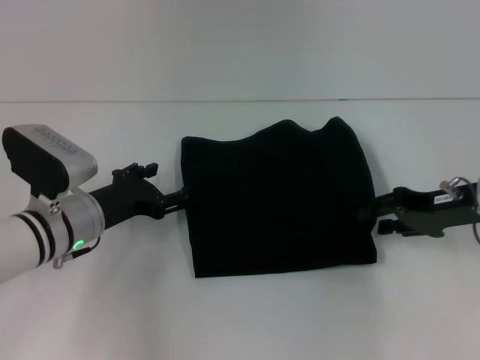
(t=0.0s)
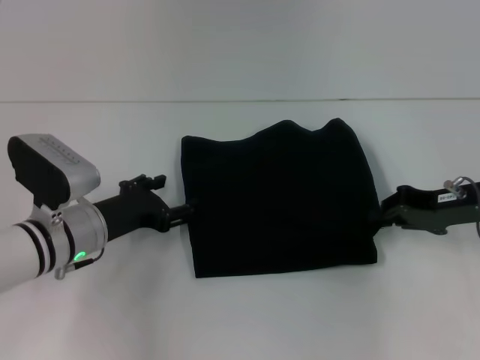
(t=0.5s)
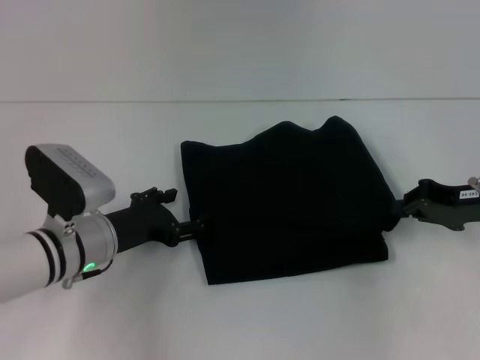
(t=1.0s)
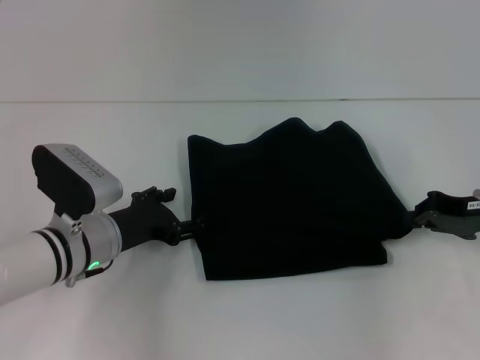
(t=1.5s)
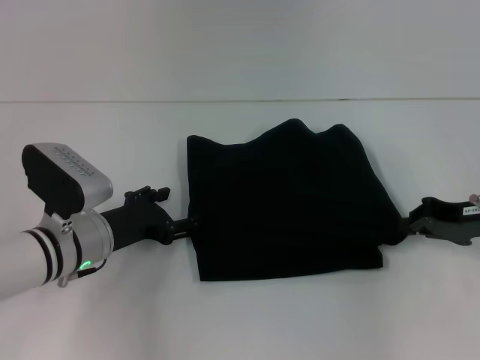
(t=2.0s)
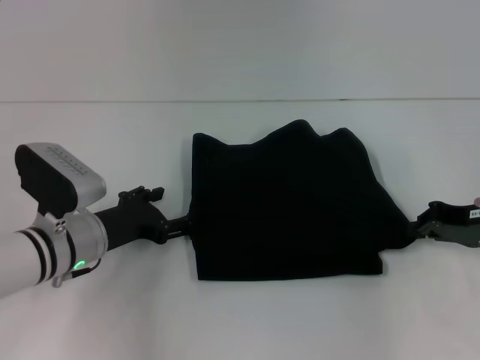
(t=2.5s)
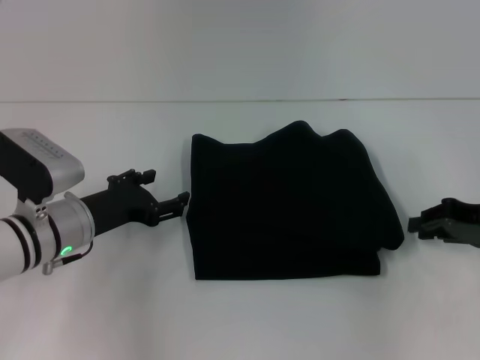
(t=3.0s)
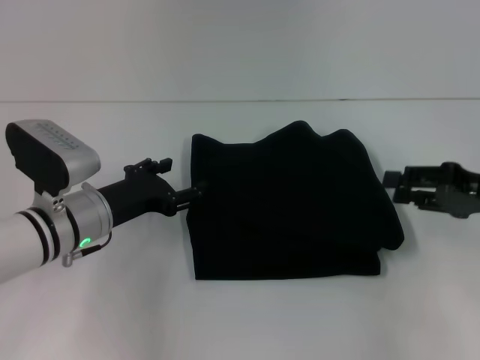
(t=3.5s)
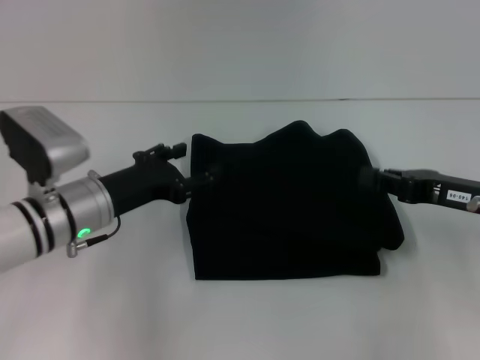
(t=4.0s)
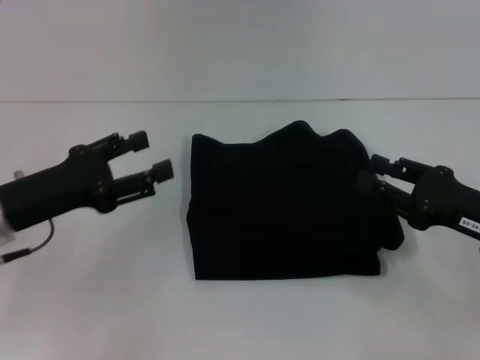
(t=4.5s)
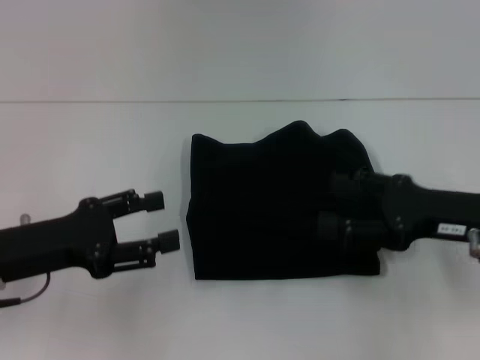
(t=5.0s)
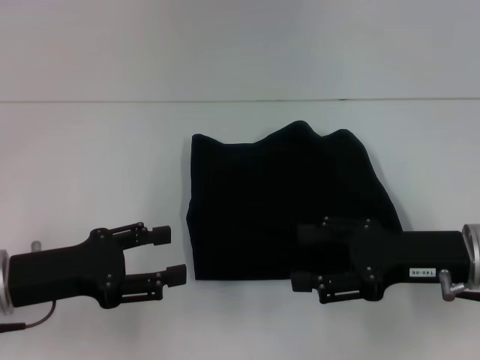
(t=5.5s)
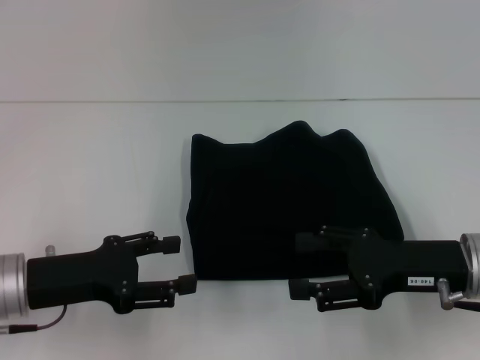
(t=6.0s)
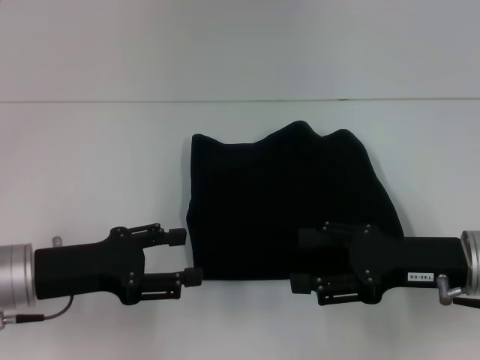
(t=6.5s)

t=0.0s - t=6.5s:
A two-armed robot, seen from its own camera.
t=0.0s - t=2.0s: The right gripper closes.
t=2.0s - t=4.5s: The right gripper is displaced backward by roughly 5 cm. Meanwhile the left gripper shifts roughly 10 cm upward and to the left.
t=4.5s - t=6.5s: The right gripper opens up.

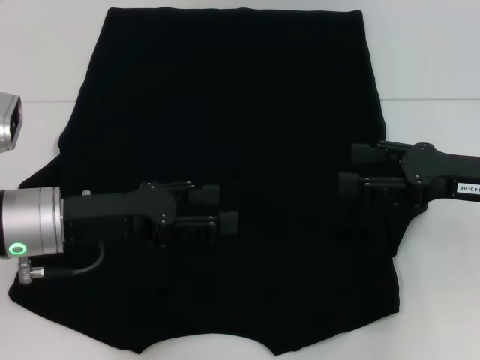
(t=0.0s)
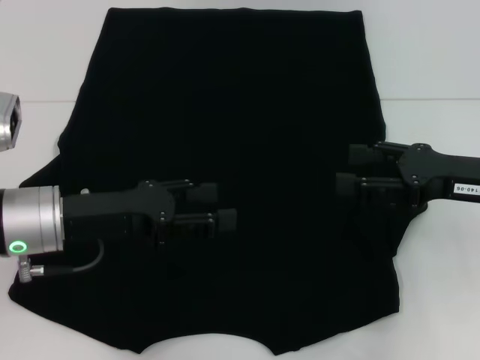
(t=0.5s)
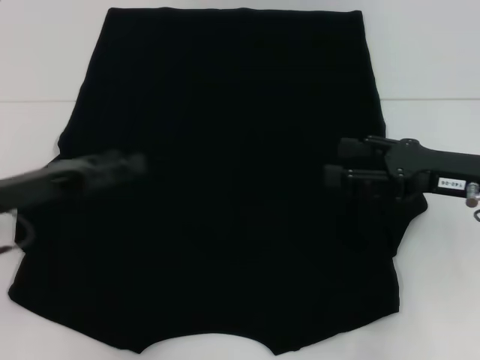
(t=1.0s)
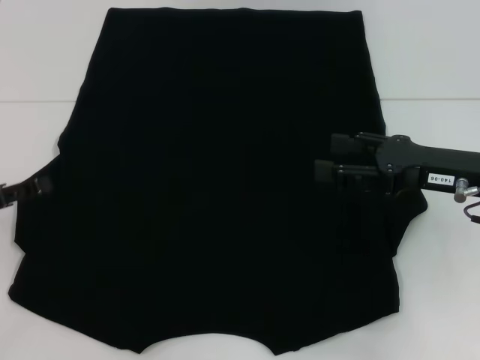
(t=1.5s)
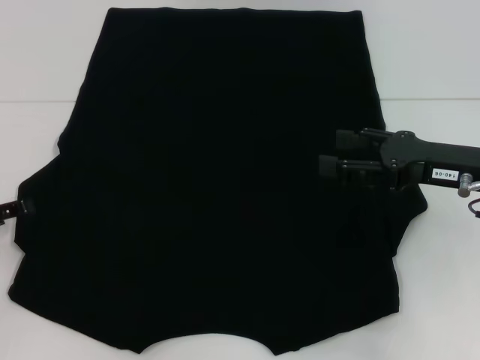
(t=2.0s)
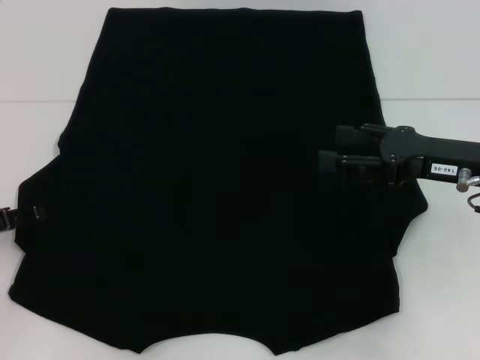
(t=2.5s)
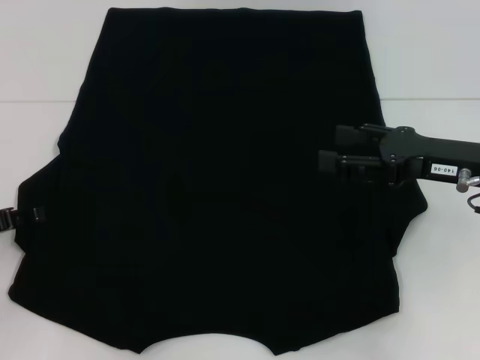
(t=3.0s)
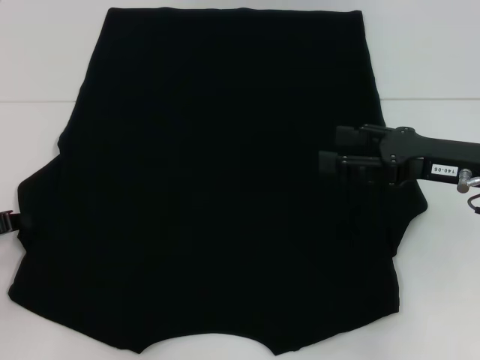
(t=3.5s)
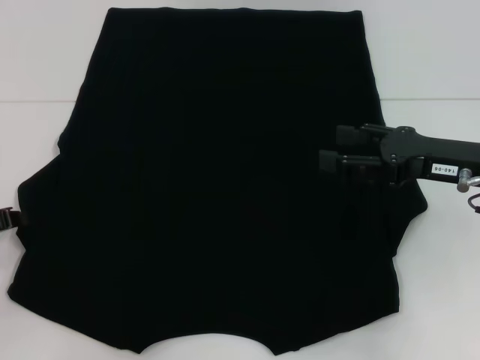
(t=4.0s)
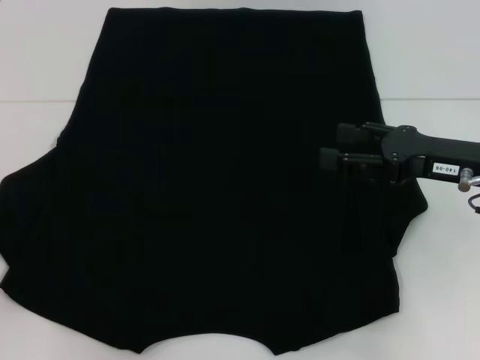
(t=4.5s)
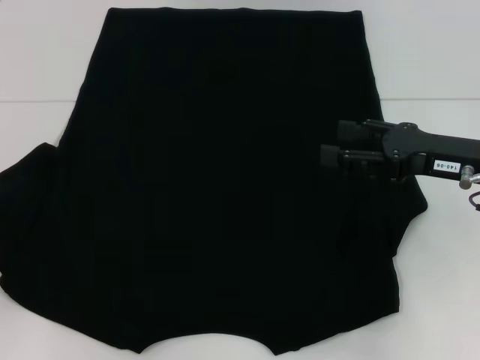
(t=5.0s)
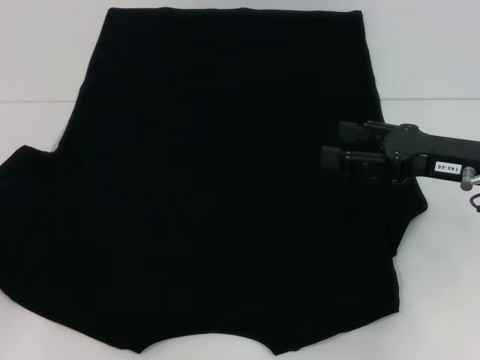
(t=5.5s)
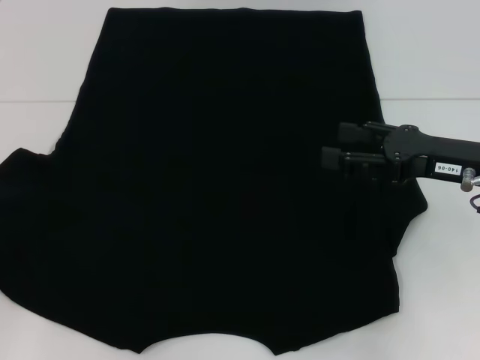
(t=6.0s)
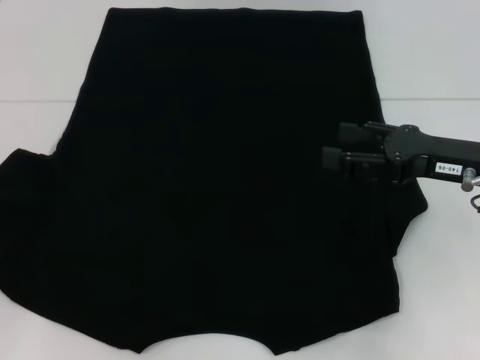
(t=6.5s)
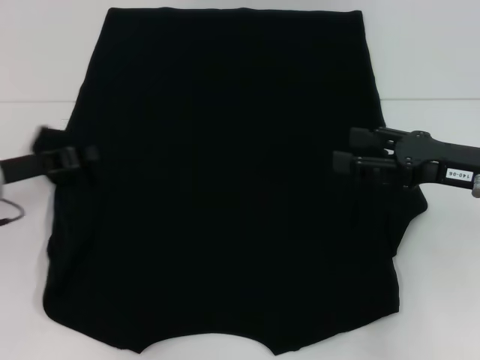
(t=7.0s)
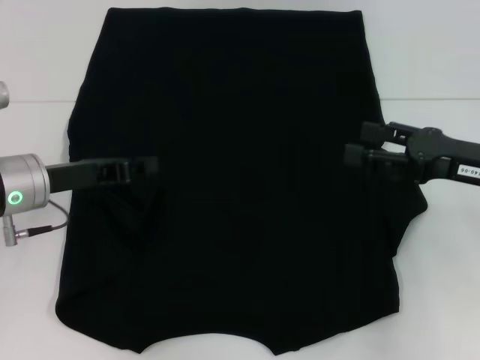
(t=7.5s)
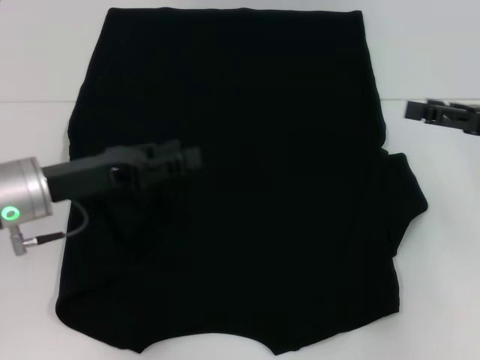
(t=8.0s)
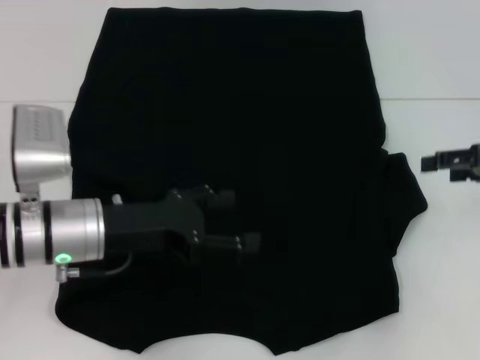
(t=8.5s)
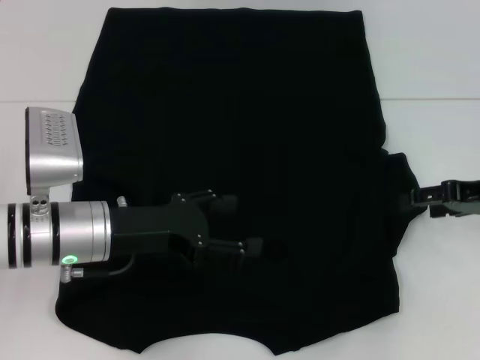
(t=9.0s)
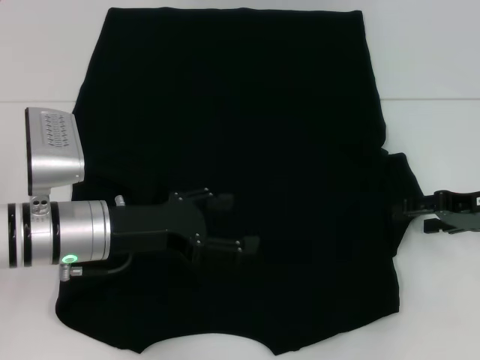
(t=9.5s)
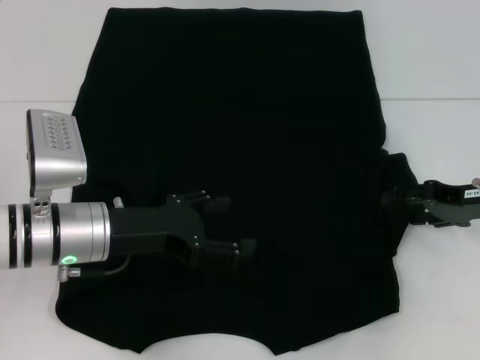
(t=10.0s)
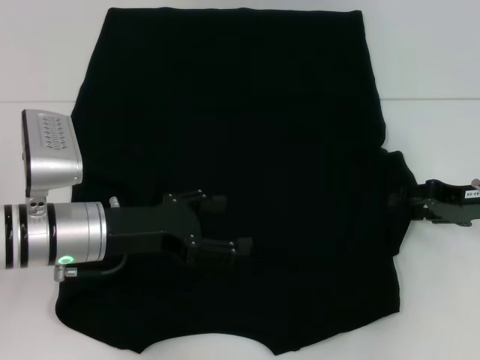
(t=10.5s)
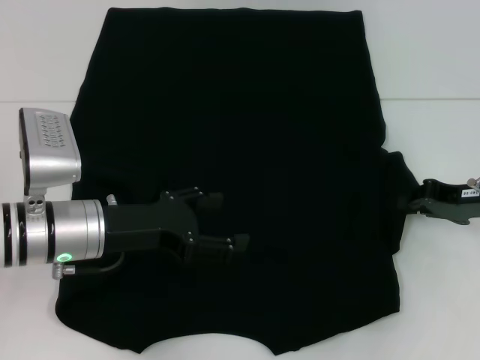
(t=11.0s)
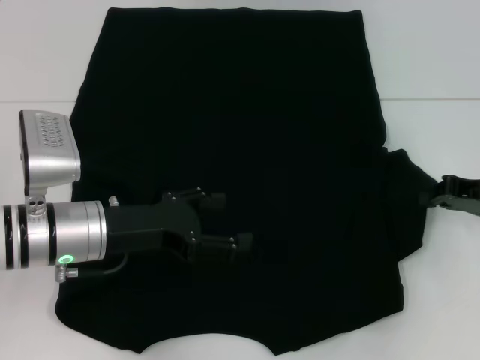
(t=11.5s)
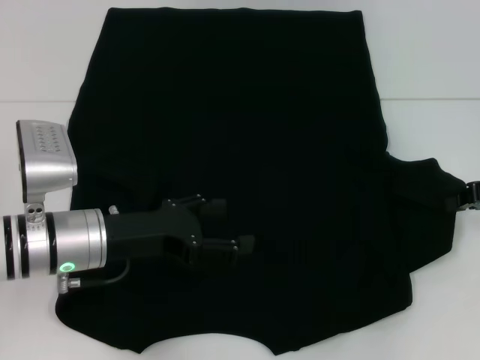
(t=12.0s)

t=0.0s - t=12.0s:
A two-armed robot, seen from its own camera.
Step, t=0.0s - t=7.0s: Fold the bottom left sleeve with your left hand.
t=0.0s - t=2.0s: The left gripper moves to the left, some 15 cm.
t=4.0s - t=6.0s: The left gripper shifts some 5 cm to the left.
t=6.0s - t=8.0s: The left gripper travels to the right by about 15 cm, and opens. The right gripper travels to the right by roughly 5 cm.
t=8.0s - t=10.0s: The left gripper shifts by roughly 5 cm, and opens up. Meanwhile the right gripper heads downward, covering some 5 cm.
t=10.0s - t=12.0s: The right gripper closes up.

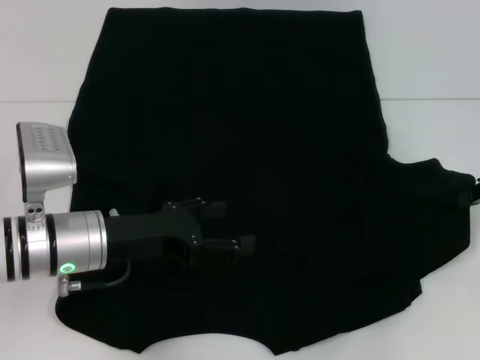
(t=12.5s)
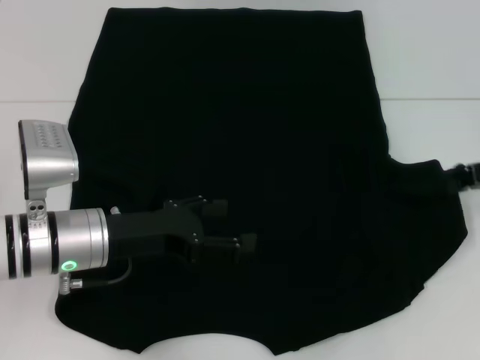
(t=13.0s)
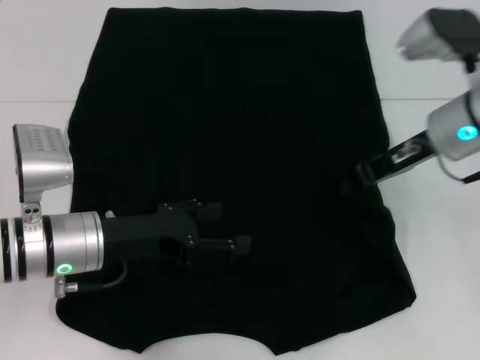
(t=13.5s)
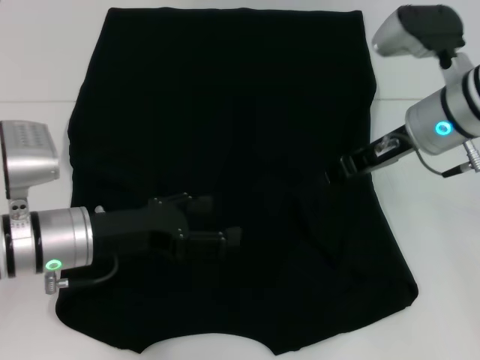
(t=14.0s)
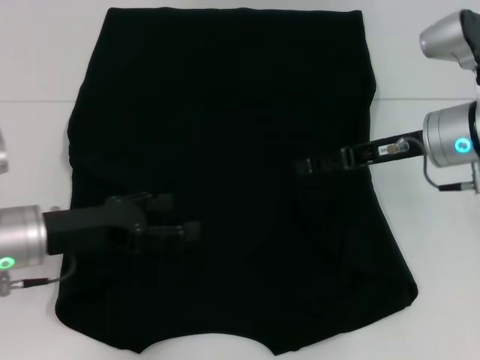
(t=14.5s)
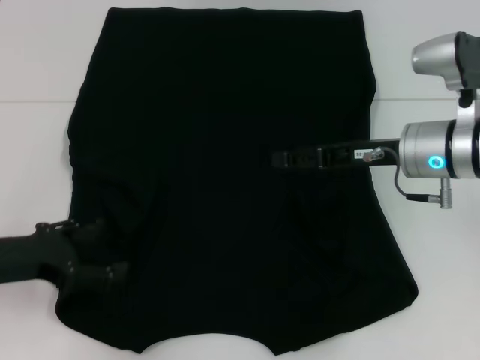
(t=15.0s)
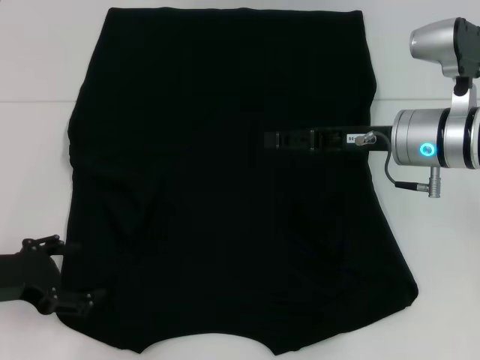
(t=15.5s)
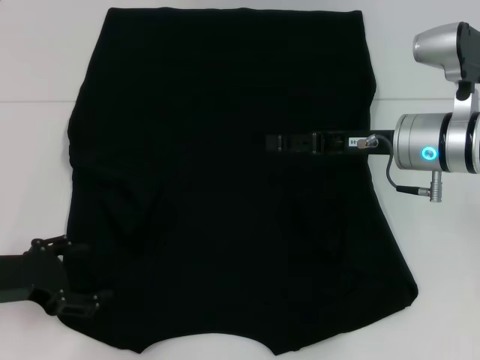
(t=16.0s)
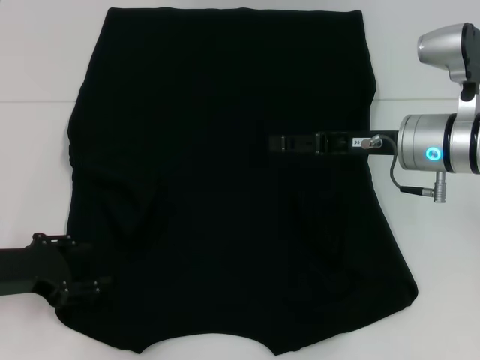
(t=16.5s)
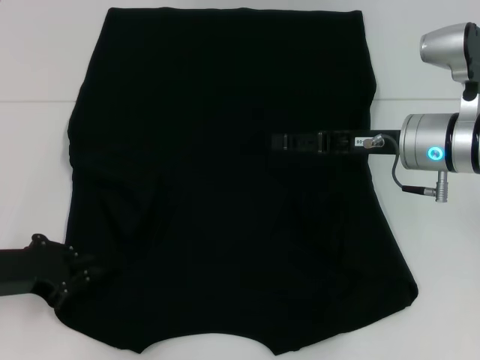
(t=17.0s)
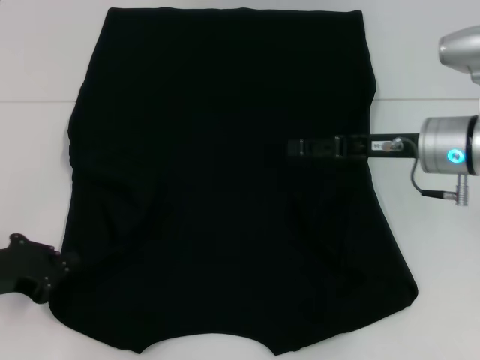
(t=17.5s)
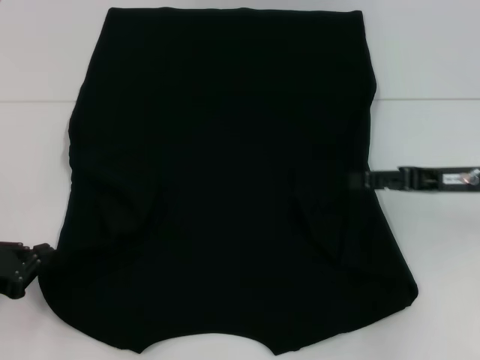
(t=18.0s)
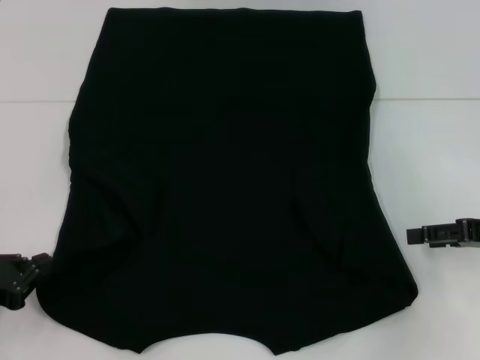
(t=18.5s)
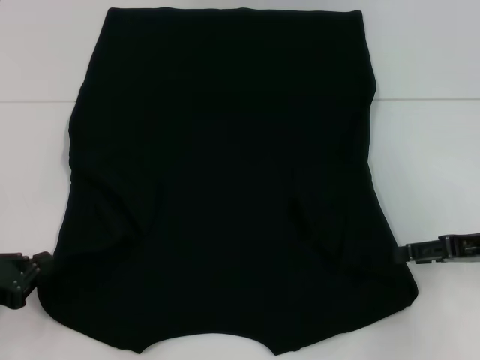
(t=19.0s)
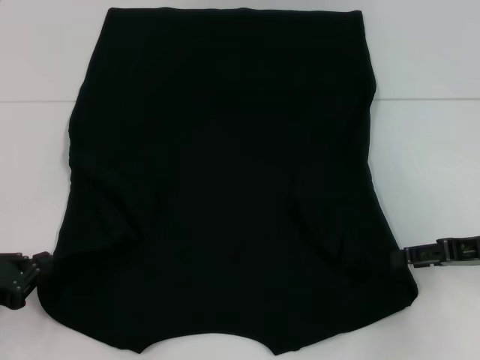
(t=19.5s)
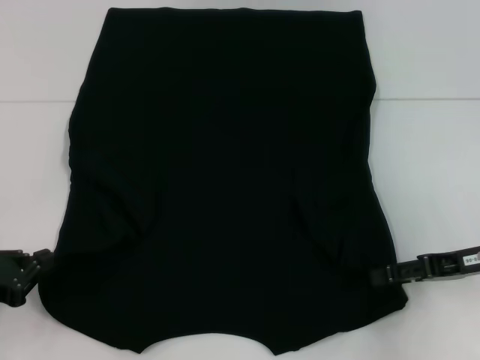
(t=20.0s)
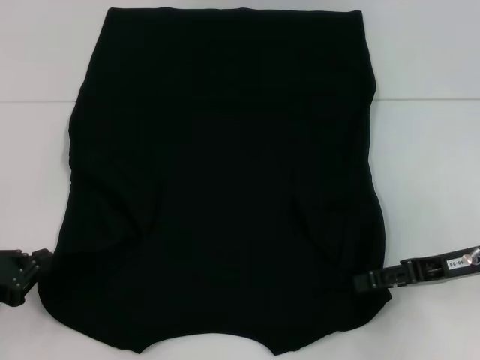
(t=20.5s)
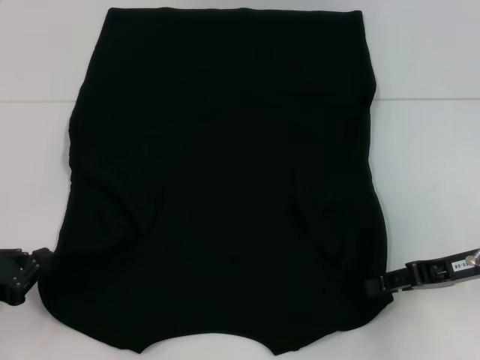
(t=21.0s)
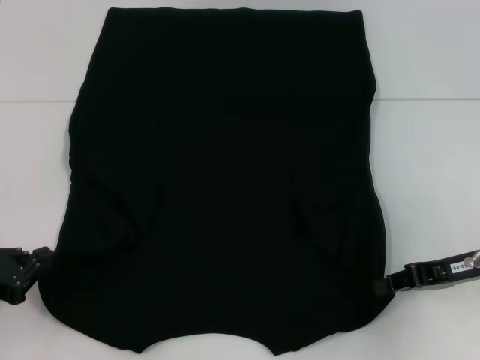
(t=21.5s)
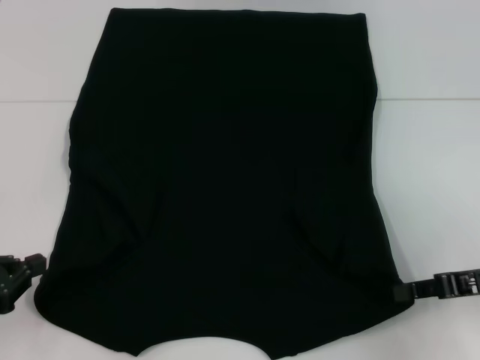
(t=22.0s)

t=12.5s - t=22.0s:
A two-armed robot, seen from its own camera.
Step, t=14.5s - t=18.5s: Grab the bottom left corner with your left hand.
Step, t=19.0s - t=21.5s: Grab the bottom right corner with your right hand.
t=12.5s - t=14.5s: The left gripper shifts about 5 cm to the left. Meanwhile the right gripper is displaced to the left by roughly 15 cm, and opens up.
t=14.5s - t=16.5s: The left gripper is displaced to the left by some 5 cm.
t=16.5s - t=18.0s: The left gripper changes place by about 5 cm, and closes up. Meanwhile the right gripper goes approximately 10 cm to the right.
t=18.0s - t=20.0s: The right gripper ends up some 5 cm from where it was.
t=20.0s - t=22.0s: The right gripper closes up.
